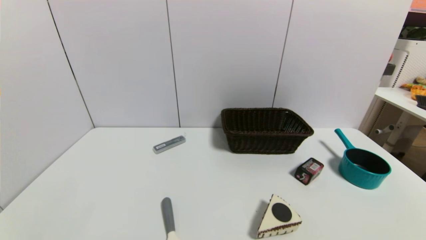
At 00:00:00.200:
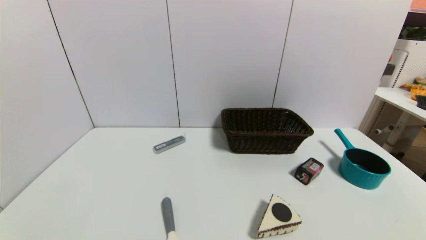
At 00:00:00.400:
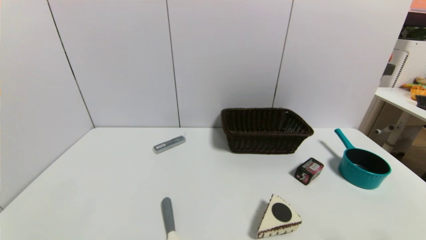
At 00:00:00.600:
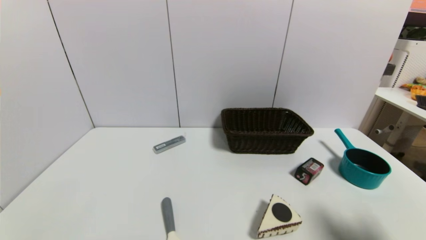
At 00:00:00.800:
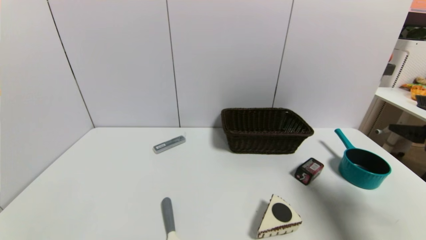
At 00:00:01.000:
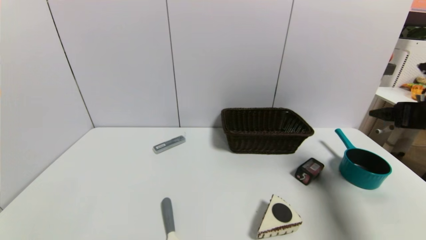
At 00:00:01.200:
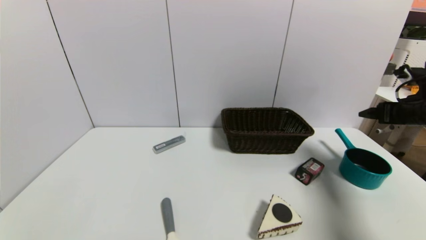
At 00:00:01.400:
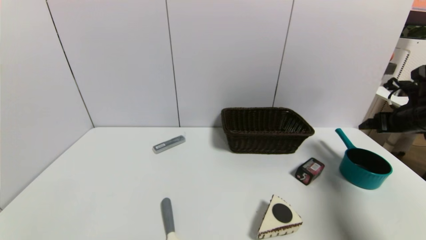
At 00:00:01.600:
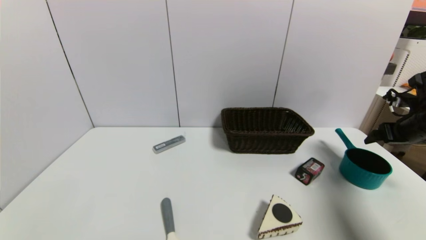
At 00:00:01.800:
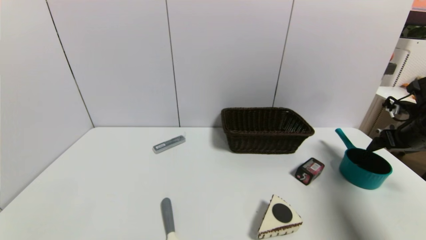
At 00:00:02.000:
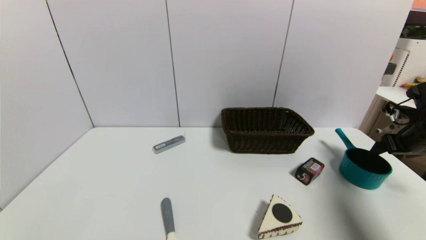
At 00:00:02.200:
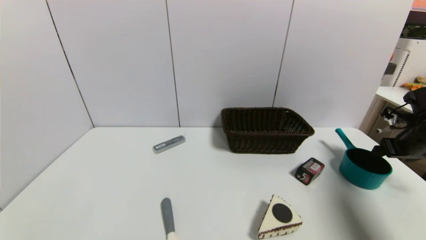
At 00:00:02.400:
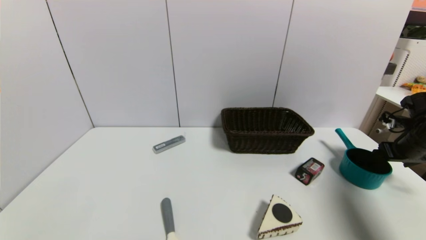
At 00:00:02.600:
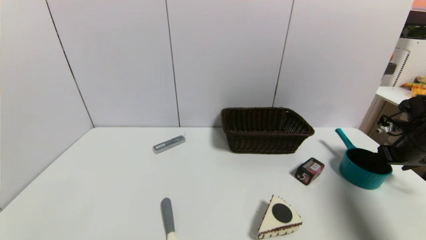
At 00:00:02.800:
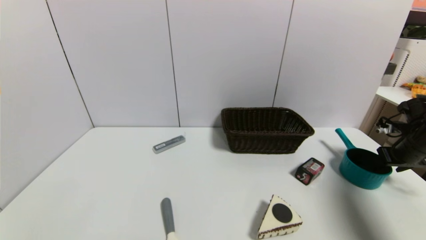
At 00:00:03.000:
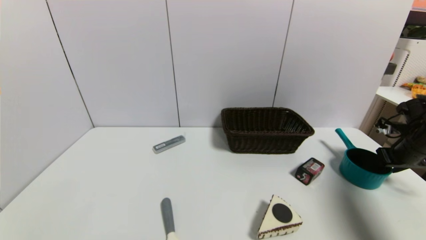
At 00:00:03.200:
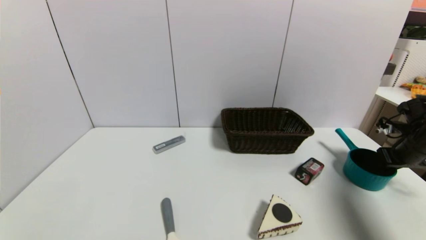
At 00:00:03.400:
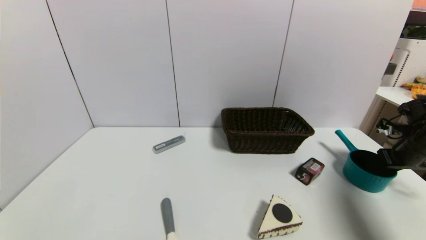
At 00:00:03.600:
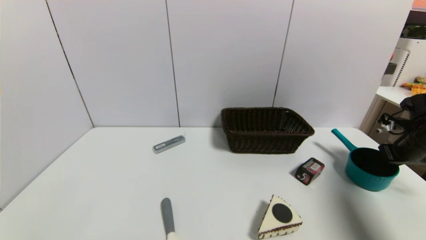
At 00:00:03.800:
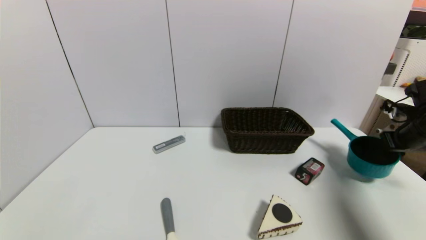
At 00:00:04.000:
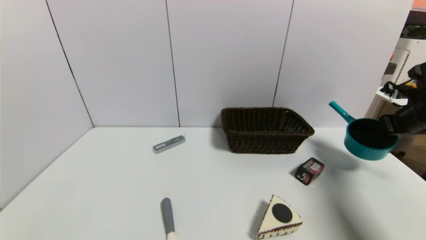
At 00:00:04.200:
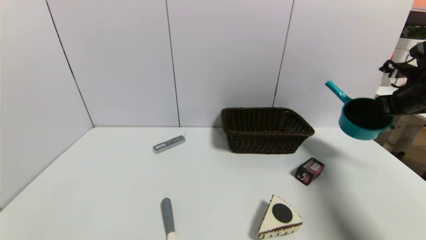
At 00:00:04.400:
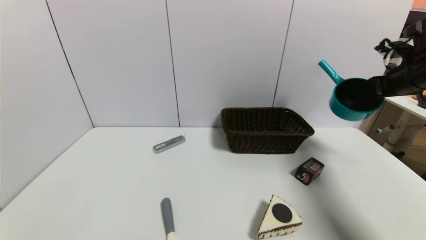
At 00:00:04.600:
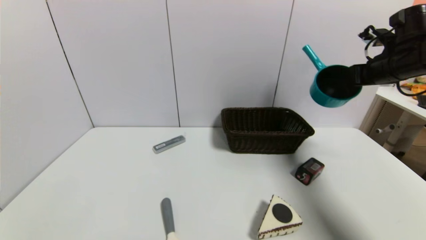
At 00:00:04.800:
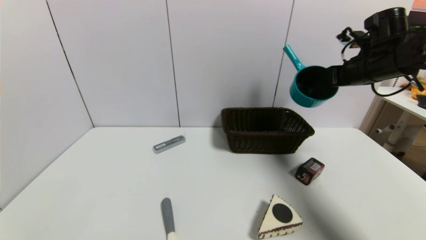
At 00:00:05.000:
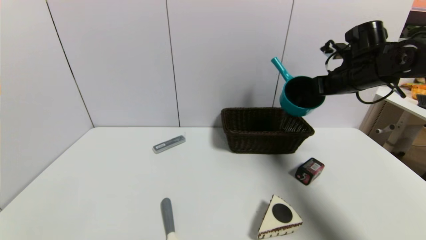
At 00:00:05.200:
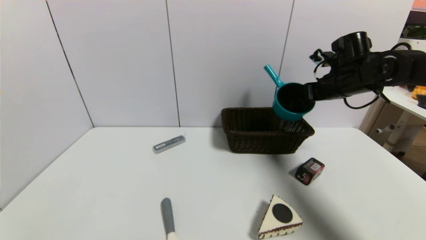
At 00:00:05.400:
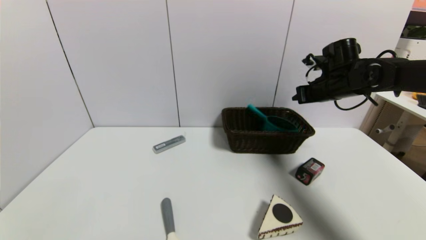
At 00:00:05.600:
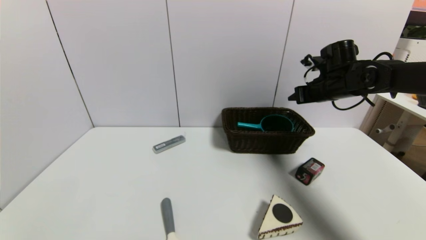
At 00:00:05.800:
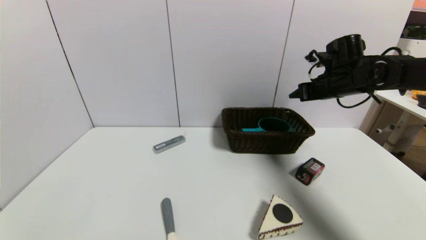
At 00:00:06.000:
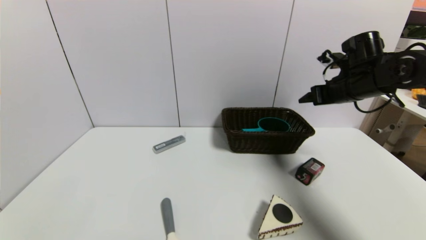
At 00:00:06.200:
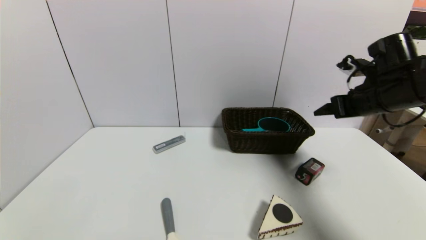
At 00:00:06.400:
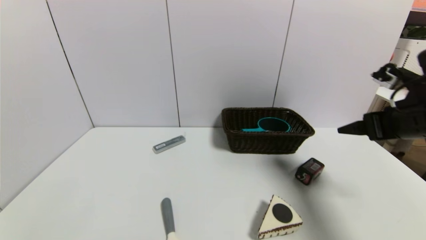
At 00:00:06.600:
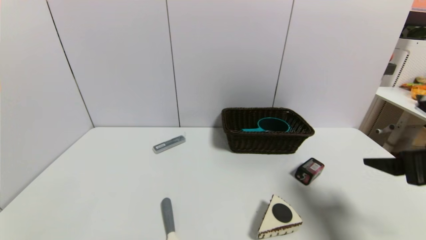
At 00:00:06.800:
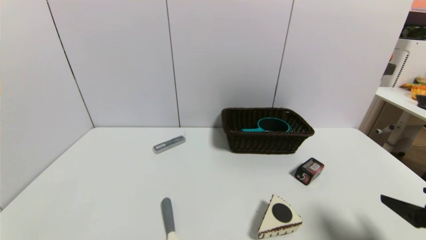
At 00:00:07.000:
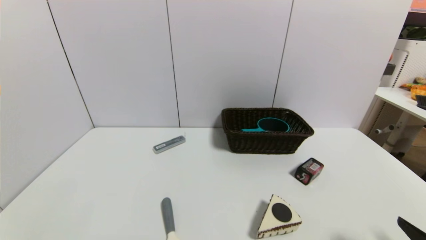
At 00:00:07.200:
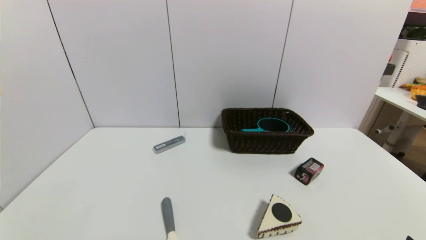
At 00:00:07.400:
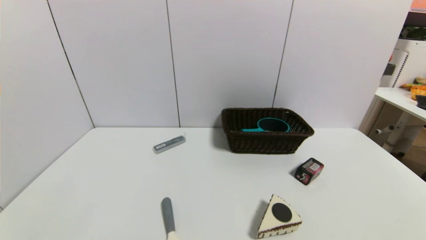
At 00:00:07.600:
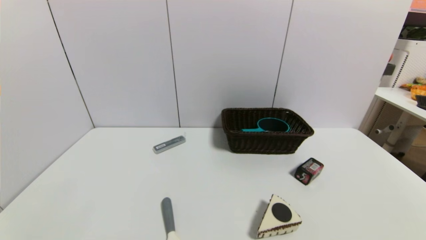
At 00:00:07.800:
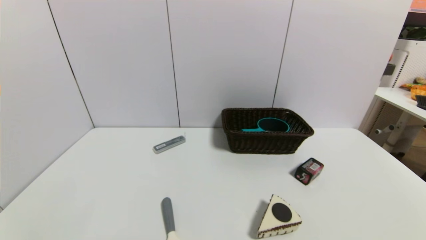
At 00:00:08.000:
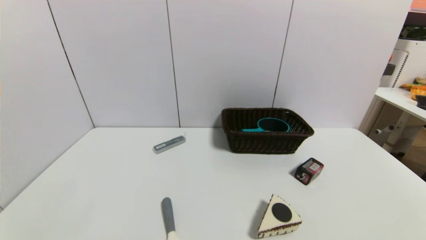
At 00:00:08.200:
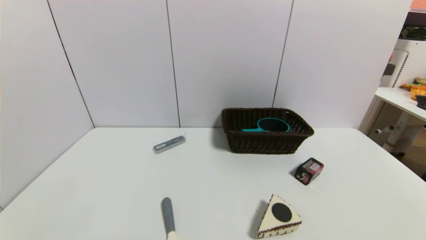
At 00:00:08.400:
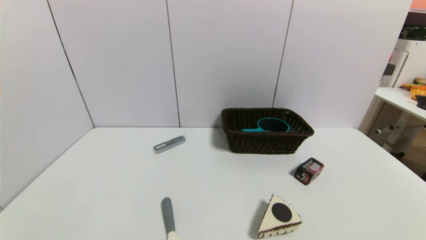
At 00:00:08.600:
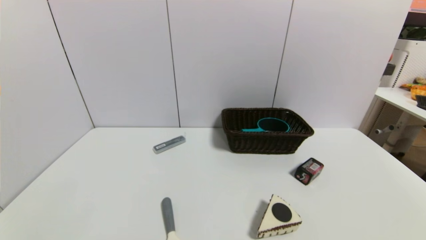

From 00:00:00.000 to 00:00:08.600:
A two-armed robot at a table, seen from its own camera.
Task of the whole recording: use a gripper to pick the target object and place on the brown basket.
Step, from 00:00:00.000 to 00:00:03.200: Grasp the blue pot with the right gripper.
Step, from 00:00:03.400 to 00:00:05.400: Place the blue pot into the basket with the right gripper.
From 00:00:00.000 to 00:00:01.400: The right gripper is displaced forward by about 35 cm.
From 00:00:01.400 to 00:00:02.800: The right gripper moves downward, roughly 5 cm, and closes its fingers.
From 00:00:02.800 to 00:00:04.400: The right gripper is displaced upward and to the left by some 15 cm, and closes its fingers.
From 00:00:04.400 to 00:00:05.800: The right gripper travels to the left and forward by roughly 10 cm, and opens.
From 00:00:05.800 to 00:00:07.200: The right gripper goes roughly 40 cm backward.
